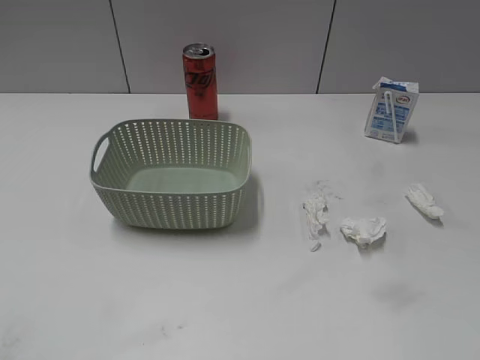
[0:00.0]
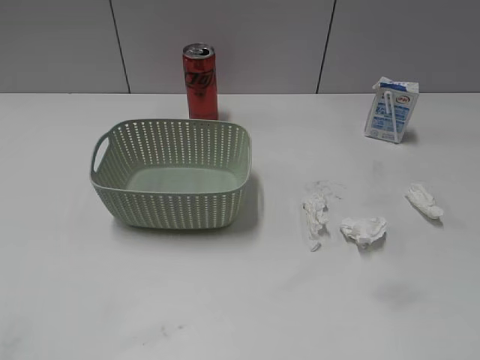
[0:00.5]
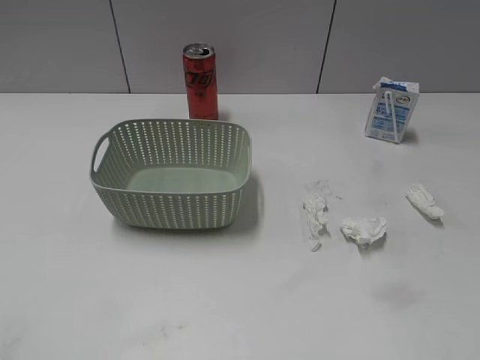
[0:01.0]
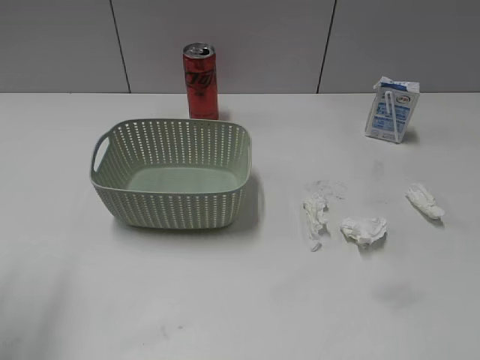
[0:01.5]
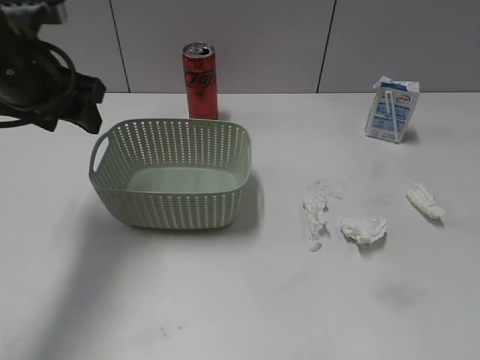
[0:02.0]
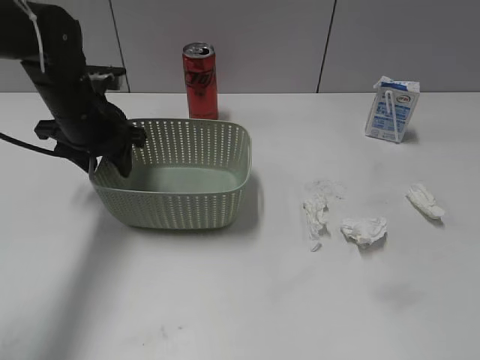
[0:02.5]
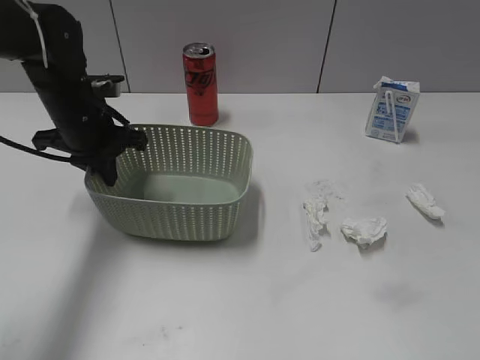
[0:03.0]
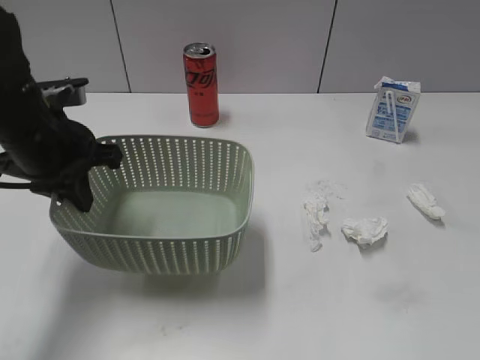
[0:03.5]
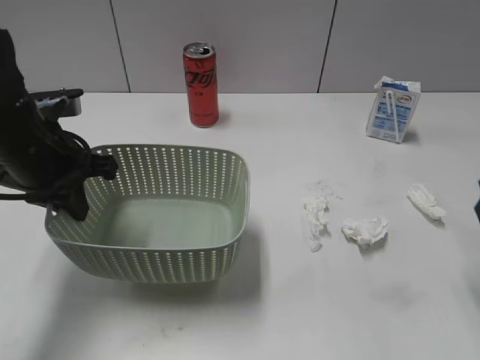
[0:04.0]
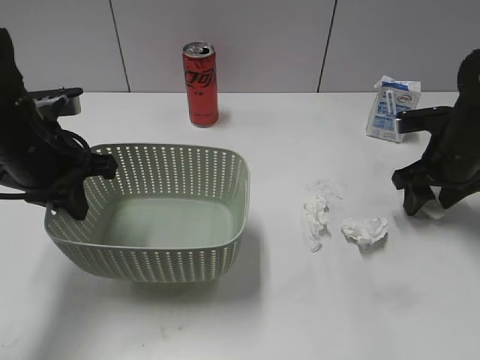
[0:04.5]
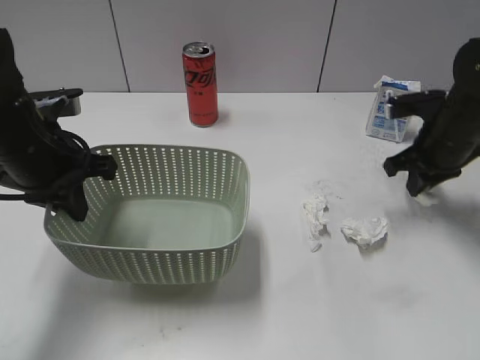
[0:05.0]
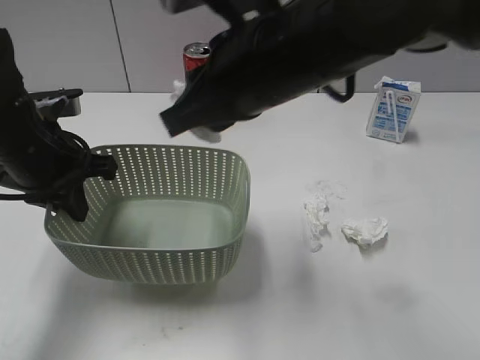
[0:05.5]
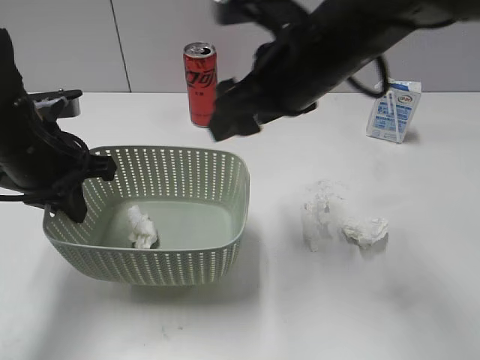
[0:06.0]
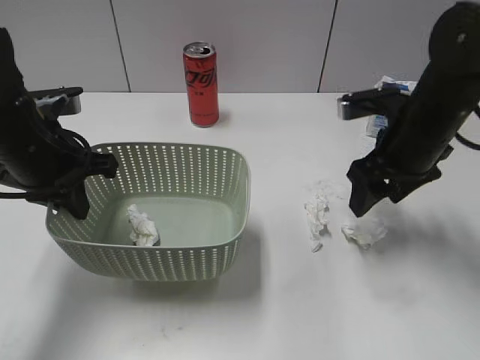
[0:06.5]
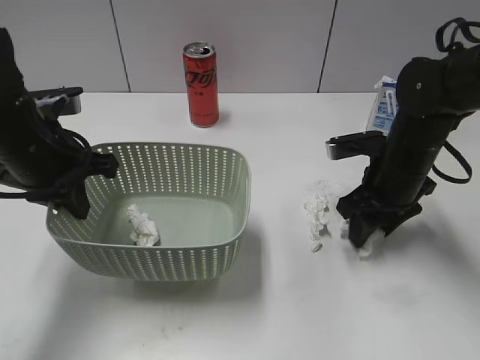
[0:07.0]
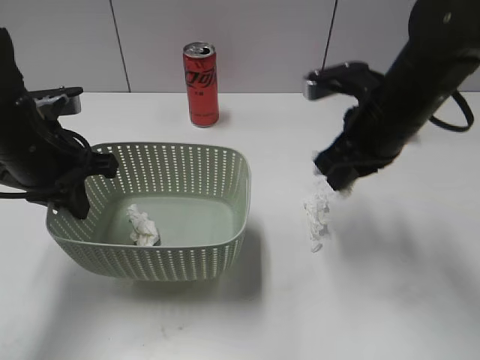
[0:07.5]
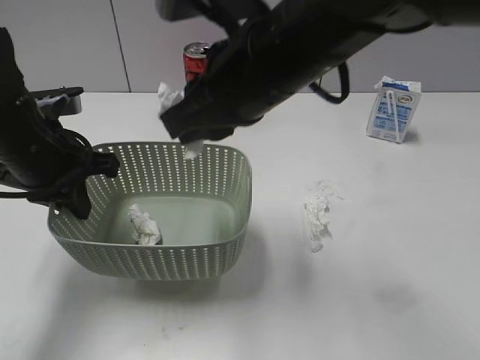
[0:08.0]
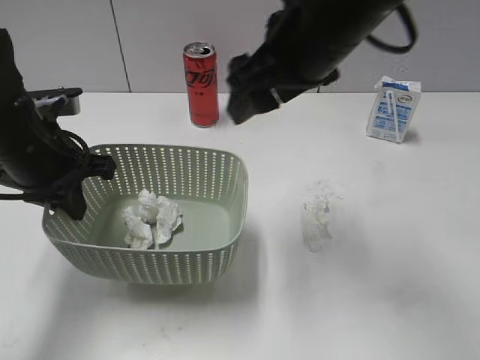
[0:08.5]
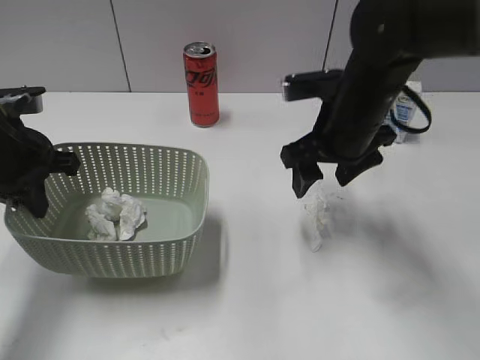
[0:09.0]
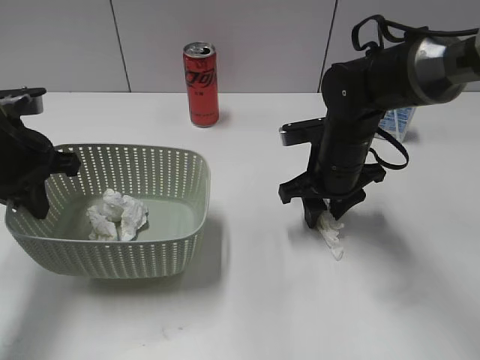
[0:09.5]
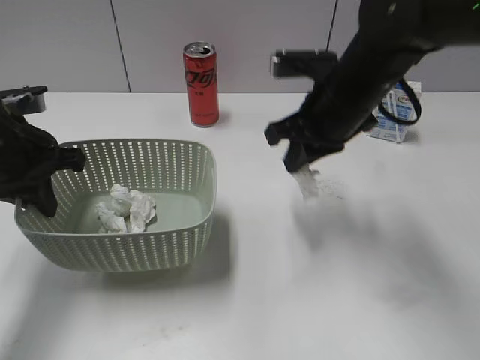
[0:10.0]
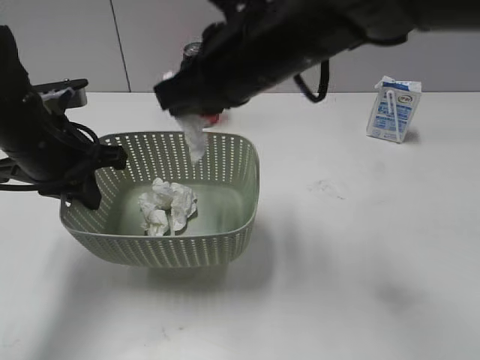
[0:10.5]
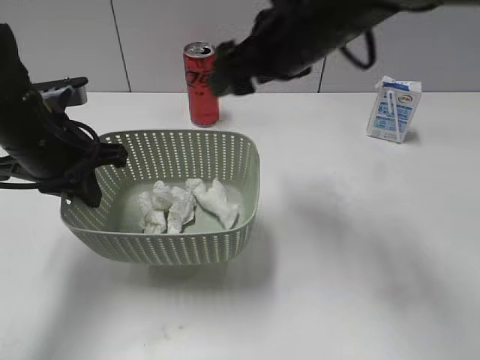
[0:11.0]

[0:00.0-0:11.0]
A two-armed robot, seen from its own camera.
Step, 0:02.0 to 0:03.0: Grasp the basket with left gripper.
Step, 0:04.0 to 0:05.0: Grasp the waste paper with right gripper.
Step, 0:05.5 to 0:06.0: Place the waste paper in the basket with right gripper.
Step, 0:06.5 to 0:07.0: Grasp the waste paper with right gripper.
Step, 0:07.5 to 0:08.0: Place the waste paper in the basket with right gripper.
Step, 0:08.5 to 0:09.5: Grasp the waste paper with right gripper.
Step, 0:10.0 to 0:10.5: Place the waste paper in the basket with right gripper.
0:02.0 to 0:03.5: The left gripper moves downward, approximately 5 cm, and closes its fingers.
0:03.5 to 0:05.5: The right gripper is displaced to the left and forward by approximately 35 cm, and closes.
0:05.5 to 0:07.5: The right gripper travels to the right, downward and forward by roughly 15 cm, and opens, then closes once more.
0:07.5 to 0:09.0: The right gripper travels to the left and back again, some 15 cm each way, and opens its fingers.
0:09.0 to 0:11.0: The right gripper heads upward and to the left, covering roughly 10 cm, and closes and opens again.

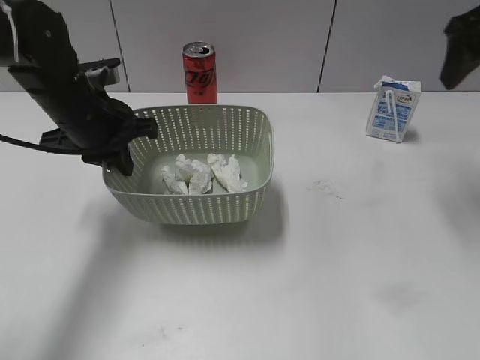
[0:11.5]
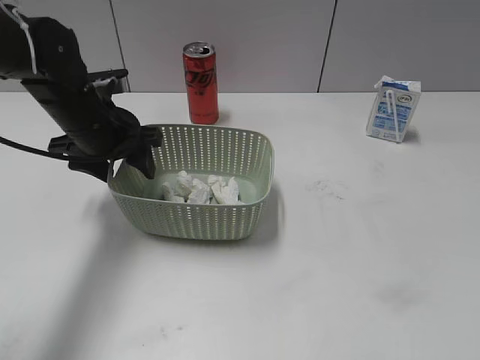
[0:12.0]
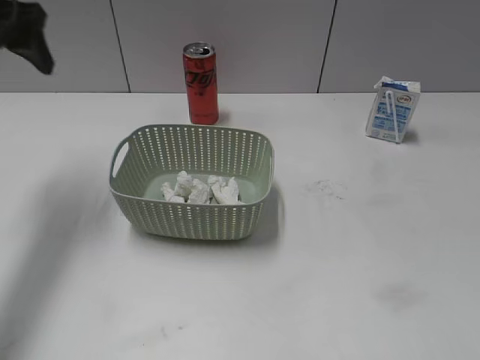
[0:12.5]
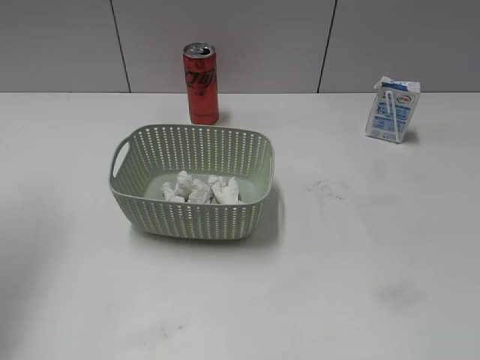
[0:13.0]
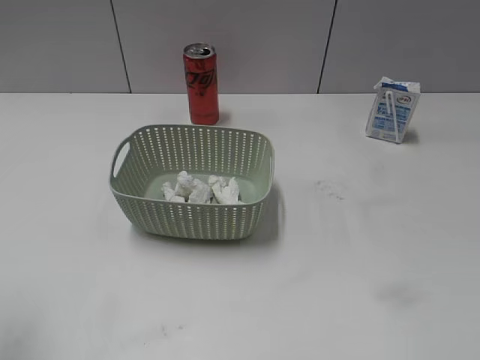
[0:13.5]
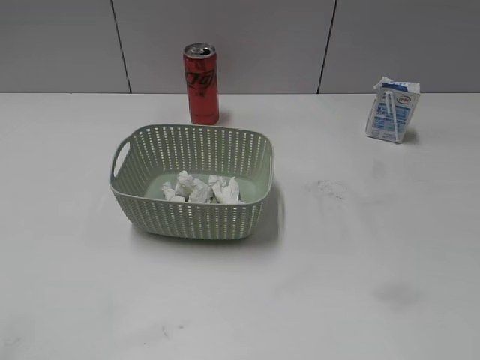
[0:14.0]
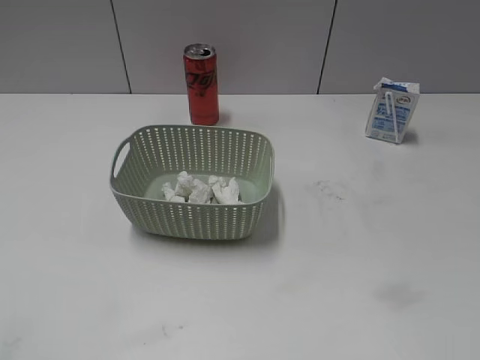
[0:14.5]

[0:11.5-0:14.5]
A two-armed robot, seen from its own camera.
Step, 0:11.5 to 0:12.0: Place the basket on the table with left gripper.
0:11.5 to 0:13.0: The left gripper moves upward and to the left, approximately 25 cm, and opens; the right gripper moves backward, about 35 cm.
0:13.0 to 0:14.5: The left gripper moves backward, approximately 30 cm.

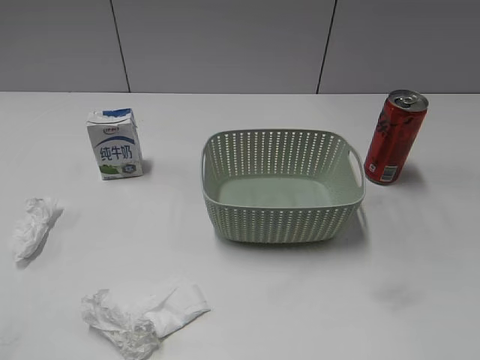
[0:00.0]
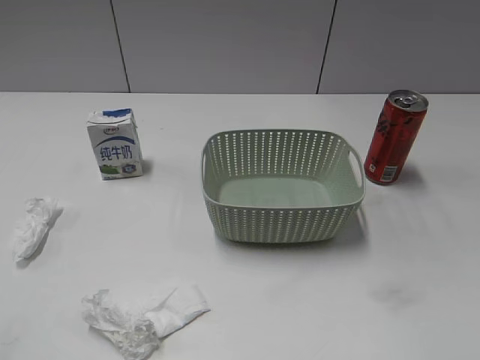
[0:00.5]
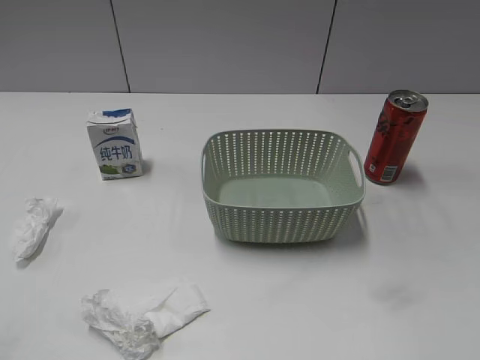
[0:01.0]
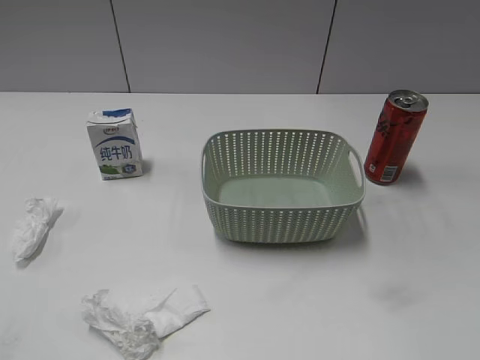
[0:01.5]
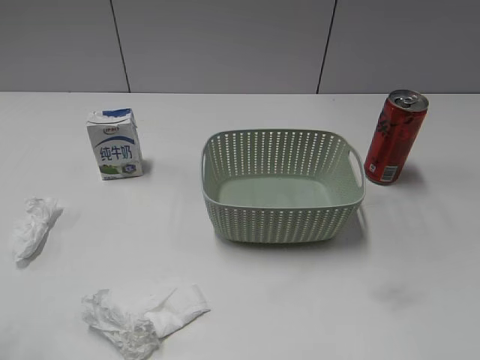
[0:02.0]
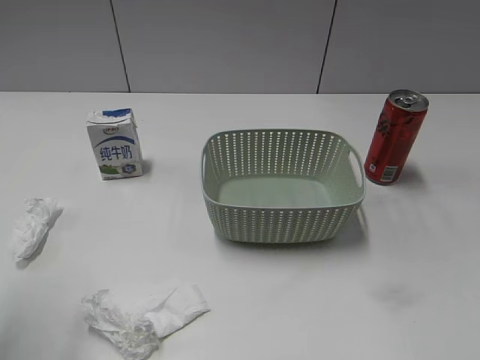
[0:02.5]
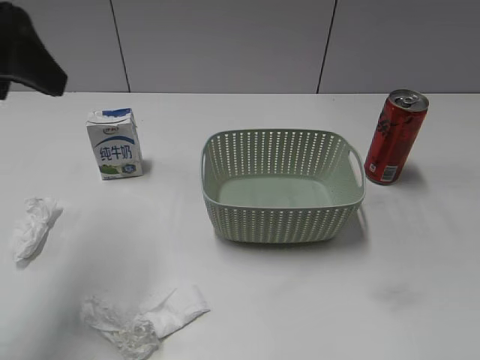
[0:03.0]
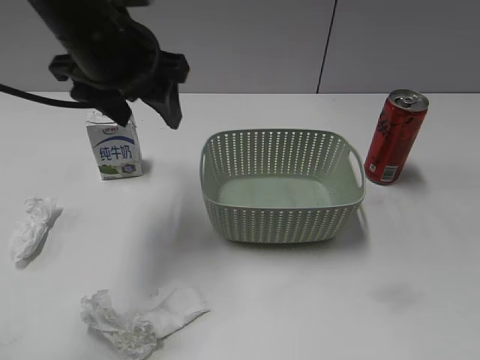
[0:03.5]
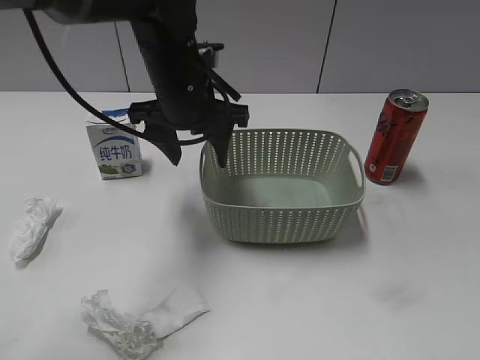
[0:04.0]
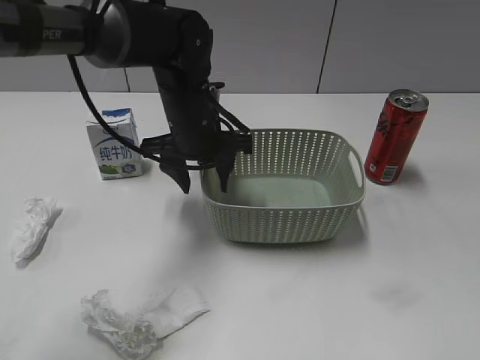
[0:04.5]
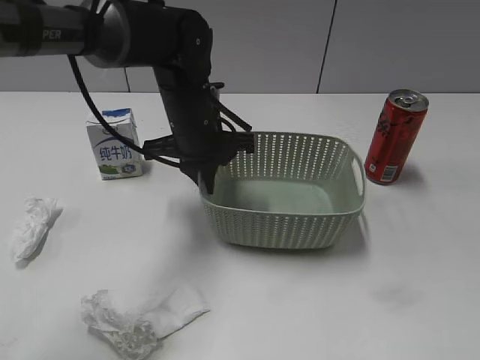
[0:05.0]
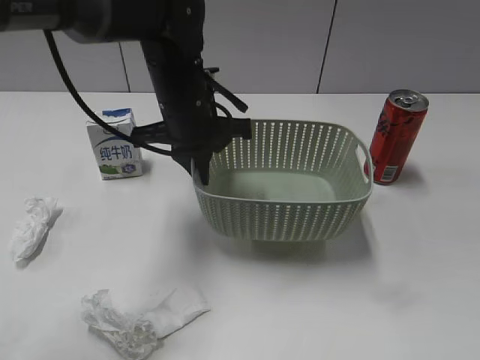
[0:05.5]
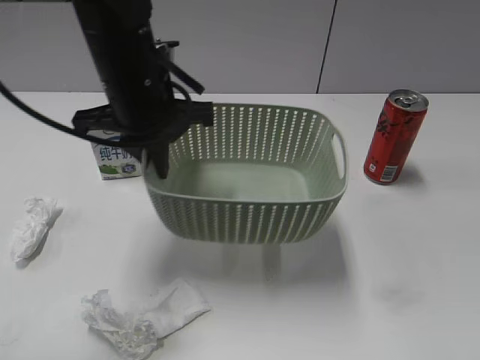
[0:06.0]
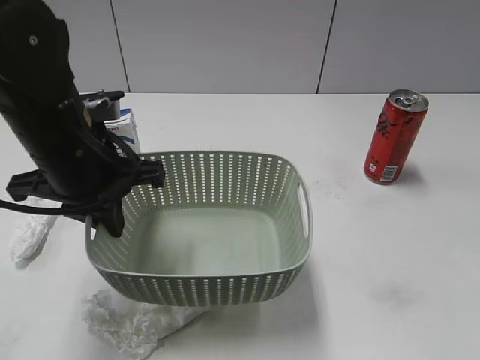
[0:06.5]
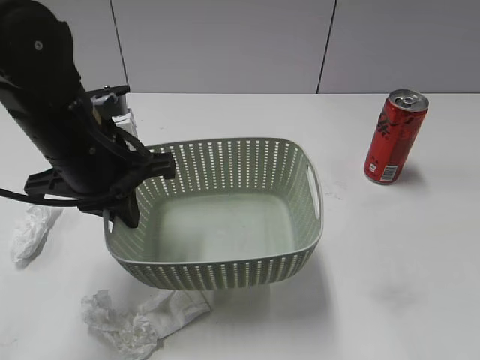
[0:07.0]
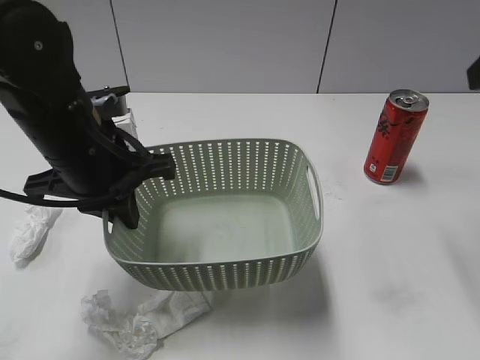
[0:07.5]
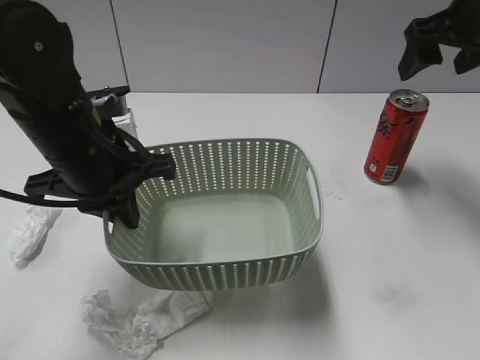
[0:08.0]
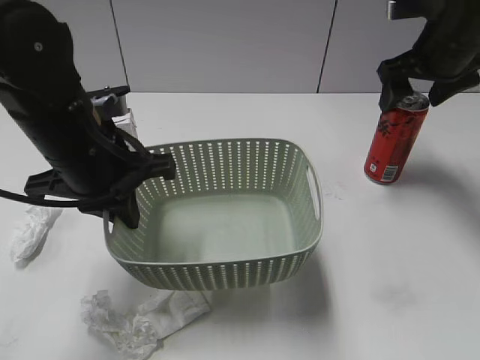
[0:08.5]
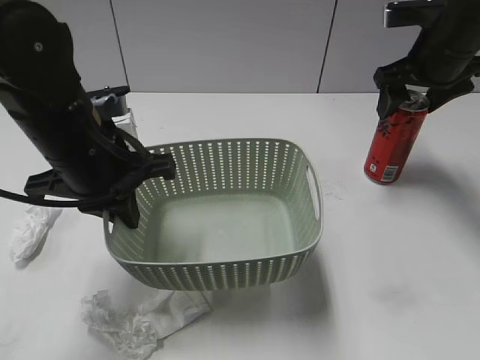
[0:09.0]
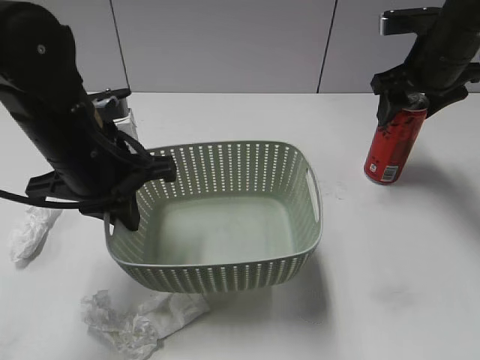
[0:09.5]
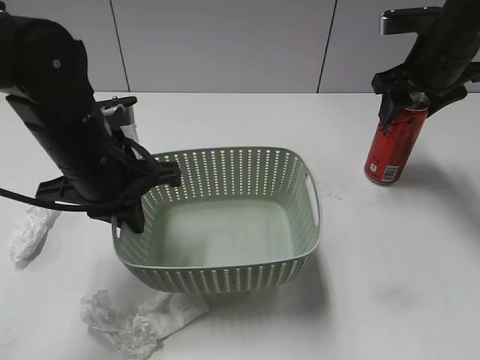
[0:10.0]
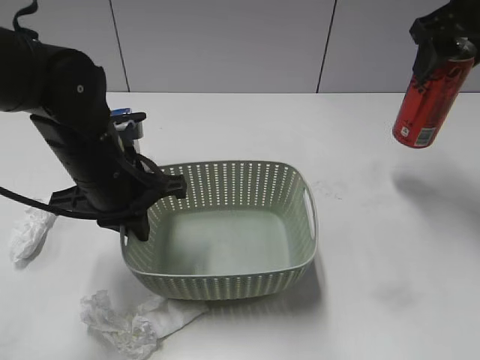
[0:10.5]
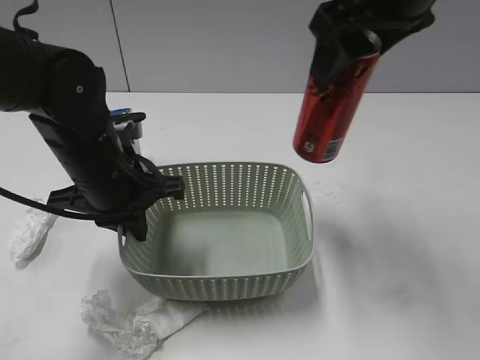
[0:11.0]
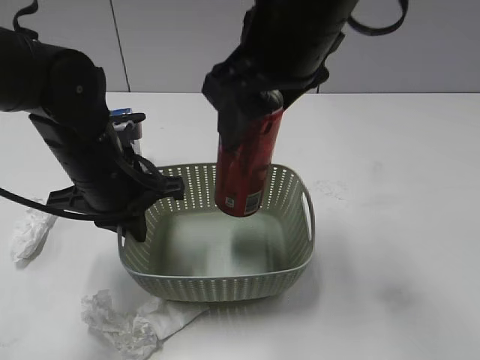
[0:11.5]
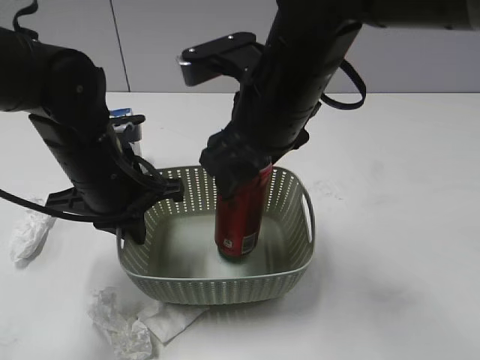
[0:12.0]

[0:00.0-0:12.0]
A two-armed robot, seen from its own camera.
Step, 0:03.0 to 0:04.5: Grasp the basket with left gripper.
Step, 0:05.0 to 0:07.5: Lift the basket with left gripper.
Step, 0:08.0 to 0:10.0: Grasp the cola can with right gripper.
0:02.0 to 0:04.0: The left gripper shifts about 40 cm forward, to the right and downward.
0:04.0 to 0:06.0: The left gripper goes downward and returns, about 5 cm each way, and closes.
0:06.0 to 0:08.0: The right gripper travels forward by some 35 cm, and opens its fingers, while the left gripper moves backward, roughly 5 cm.
0:08.0 to 0:10.0: The right gripper heads downward and forward, covering roughly 10 cm, and closes its fingers.
0:10.0 to 0:12.0: The right gripper travels to the left and backward by approximately 25 cm.
